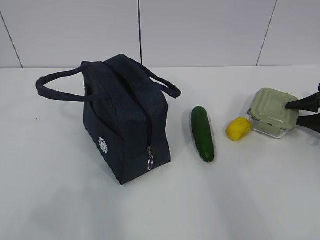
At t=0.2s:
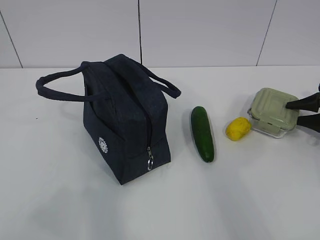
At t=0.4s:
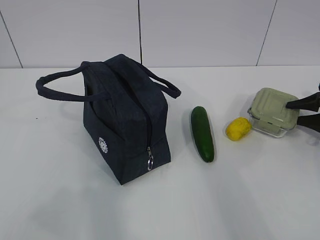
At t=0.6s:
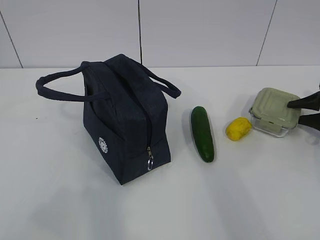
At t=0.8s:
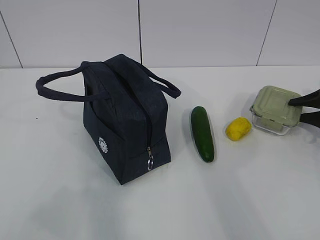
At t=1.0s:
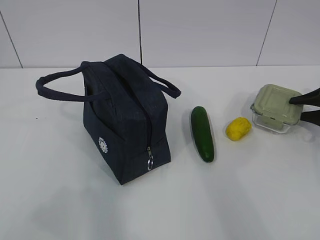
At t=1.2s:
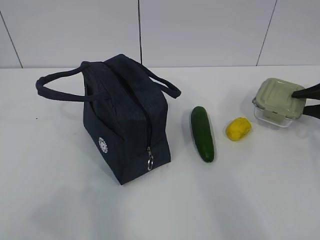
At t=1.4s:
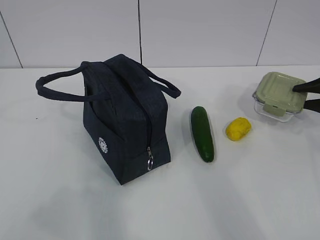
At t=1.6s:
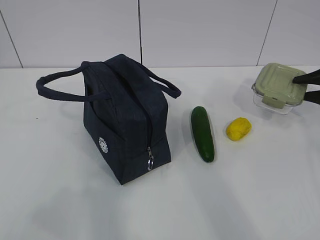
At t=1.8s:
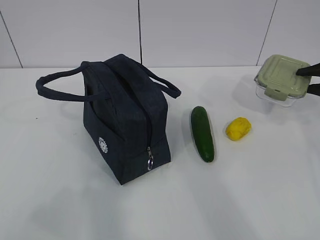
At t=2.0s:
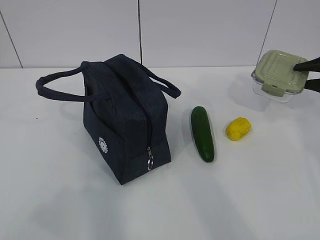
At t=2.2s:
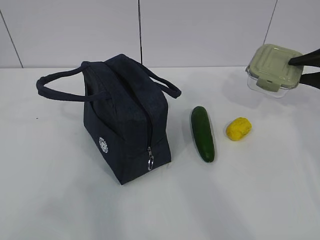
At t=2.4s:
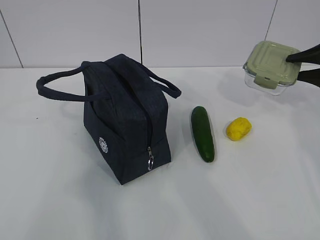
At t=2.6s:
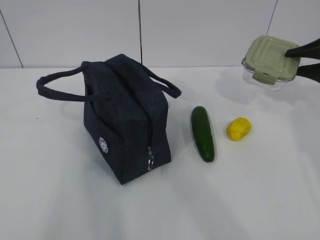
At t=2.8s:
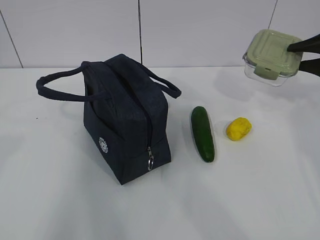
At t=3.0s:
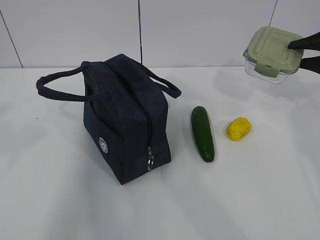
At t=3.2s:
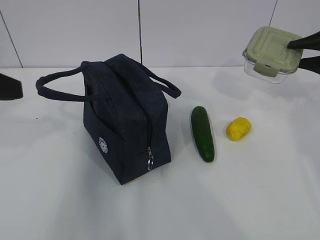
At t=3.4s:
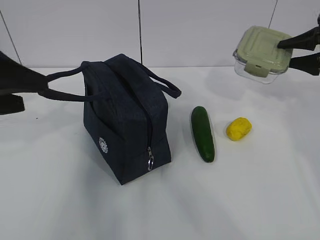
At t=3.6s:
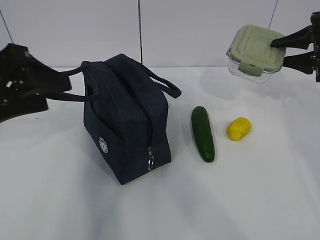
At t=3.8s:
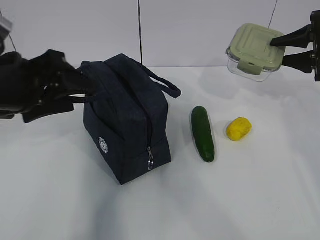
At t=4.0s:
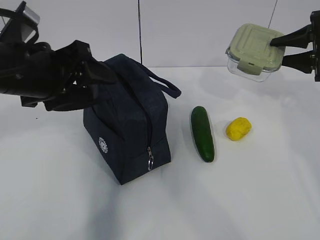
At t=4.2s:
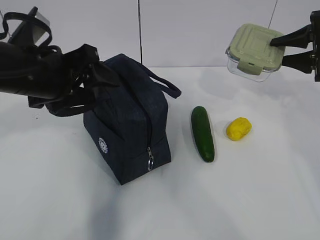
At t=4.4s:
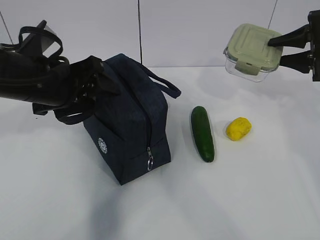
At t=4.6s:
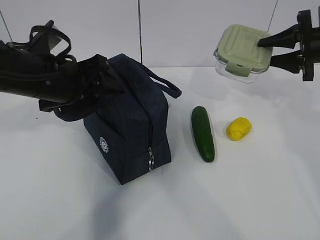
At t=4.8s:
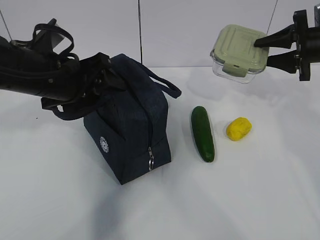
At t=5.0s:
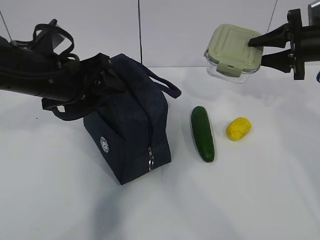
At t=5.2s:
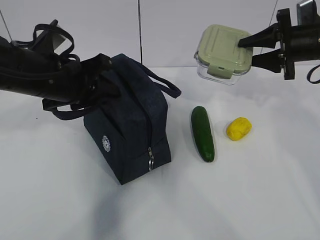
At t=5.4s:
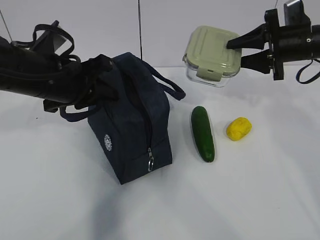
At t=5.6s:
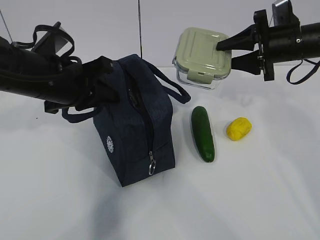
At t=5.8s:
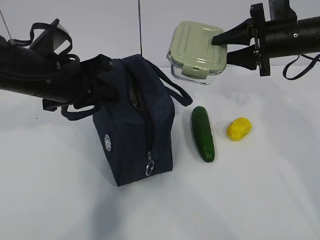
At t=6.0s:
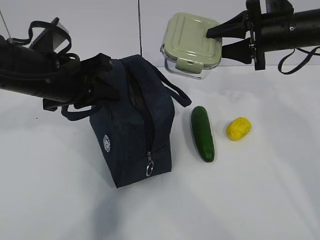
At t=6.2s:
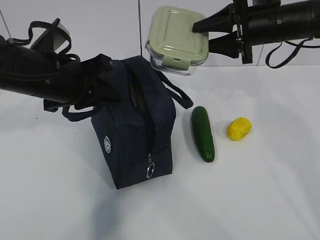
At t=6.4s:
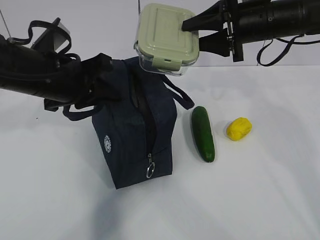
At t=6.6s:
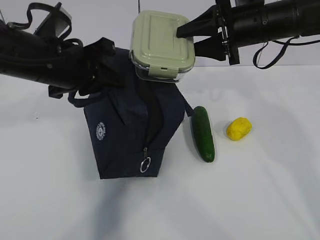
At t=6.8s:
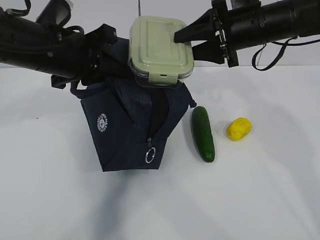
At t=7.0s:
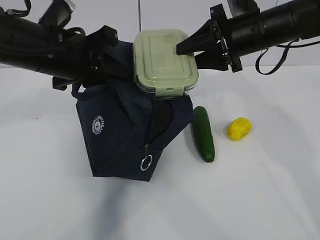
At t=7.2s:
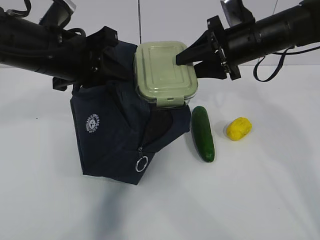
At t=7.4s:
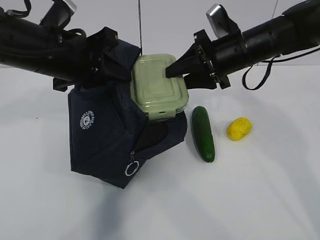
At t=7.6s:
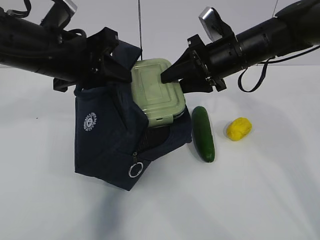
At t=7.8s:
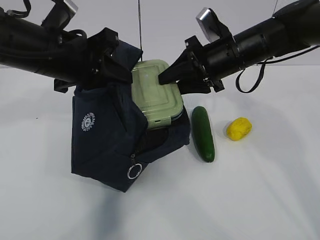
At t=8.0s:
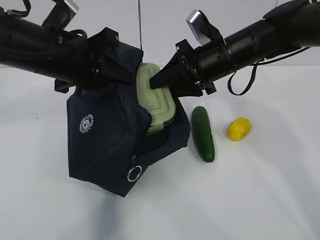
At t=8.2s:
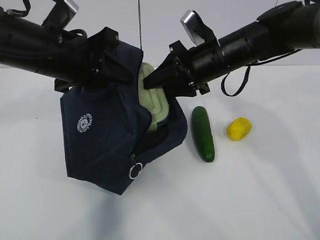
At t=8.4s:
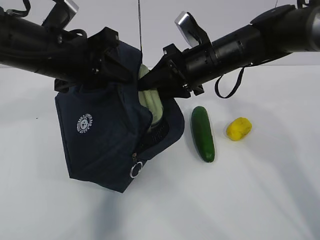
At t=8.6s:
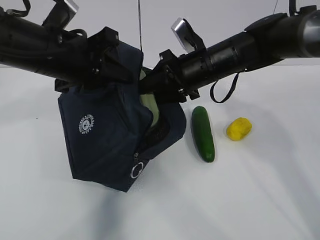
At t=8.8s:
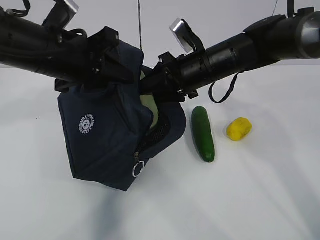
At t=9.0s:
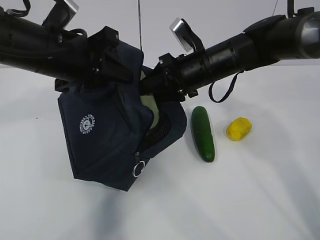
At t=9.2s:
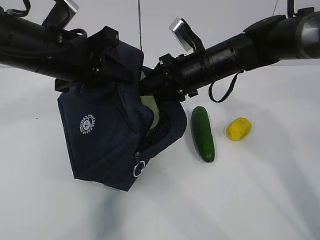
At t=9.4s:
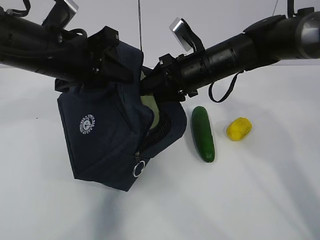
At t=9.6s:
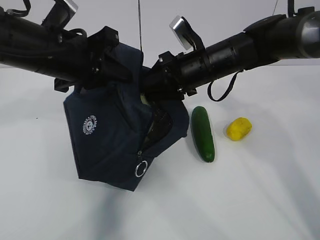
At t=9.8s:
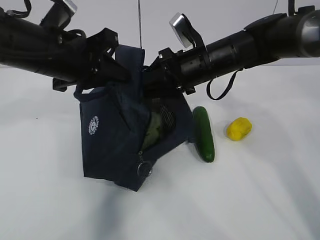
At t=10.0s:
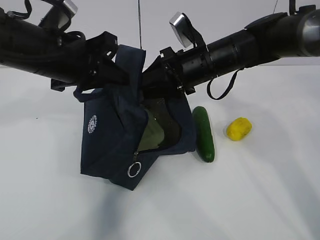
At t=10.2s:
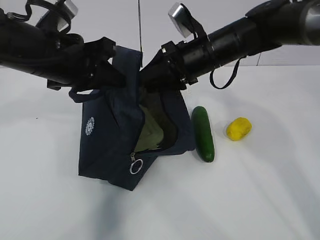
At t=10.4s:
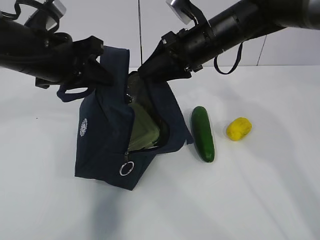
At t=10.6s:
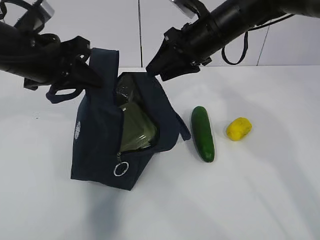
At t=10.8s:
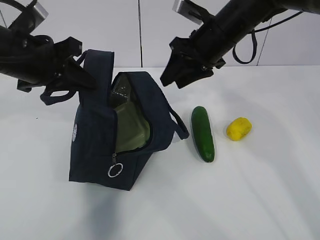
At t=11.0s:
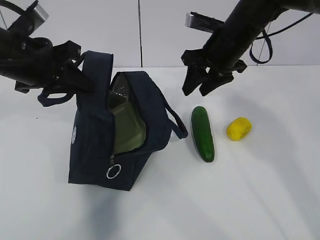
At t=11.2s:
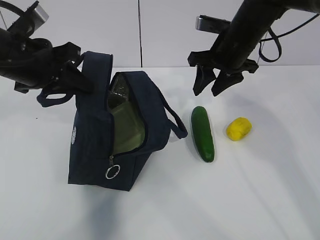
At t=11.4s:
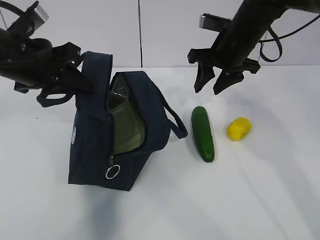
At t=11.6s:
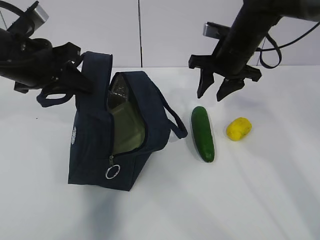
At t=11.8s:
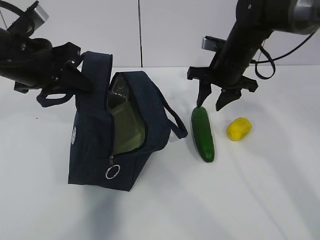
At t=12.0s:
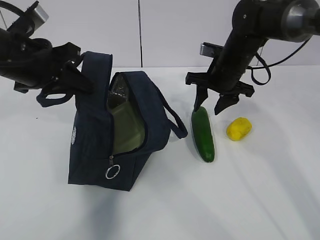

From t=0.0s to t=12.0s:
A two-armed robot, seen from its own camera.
Step, from t=1.6s to t=4.2s: Place it into the bag with your right hand.
Step, from t=4.4s to t=7.6s: Grab the cucumber with your right hand.
From t=0.0s to t=1.6s: The right gripper shifts about 5 cm upward.
From t=1.6s to t=3.0s: The right gripper travels upward by roughly 10 cm. Meanwhile the left gripper moves forward, some 15 cm.
From t=3.0s to t=4.4s: The left gripper heads forward, to the right and downward, covering some 20 cm.
From t=4.4s to t=6.0s: The right gripper goes about 10 cm to the left. The left gripper closes its fingers.
From t=6.0s to t=7.6s: The right gripper moves to the left, approximately 10 cm.
From t=7.6s to t=9.0s: The right gripper moves about 5 cm.
From t=10.4s to t=12.0s: The right gripper travels downward and to the right by about 10 cm.

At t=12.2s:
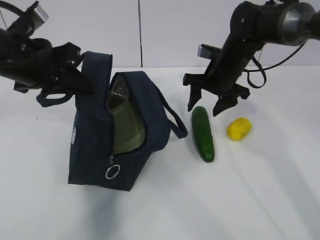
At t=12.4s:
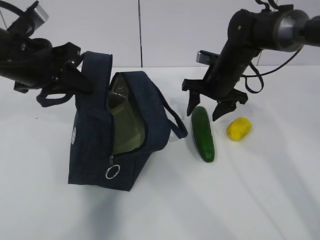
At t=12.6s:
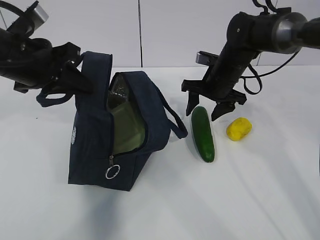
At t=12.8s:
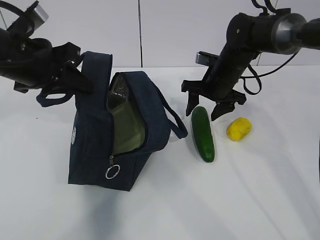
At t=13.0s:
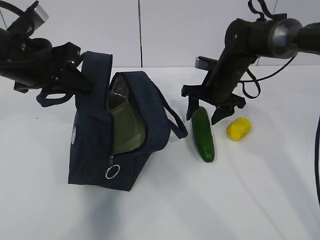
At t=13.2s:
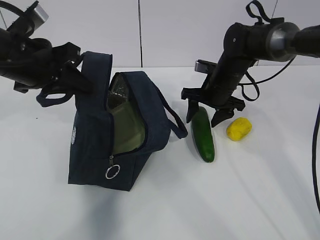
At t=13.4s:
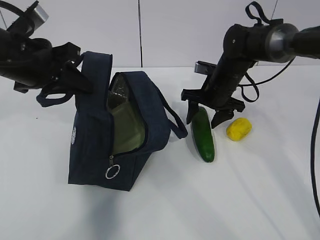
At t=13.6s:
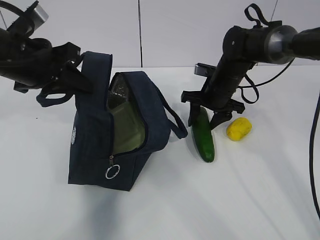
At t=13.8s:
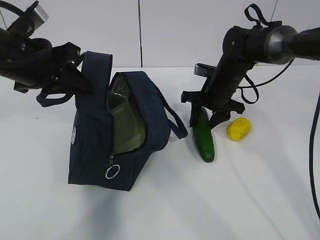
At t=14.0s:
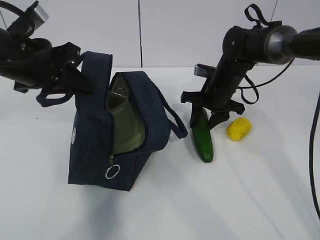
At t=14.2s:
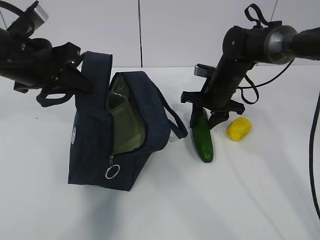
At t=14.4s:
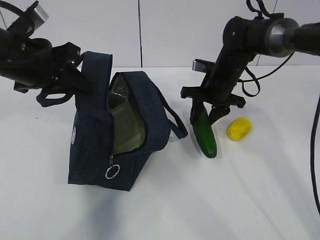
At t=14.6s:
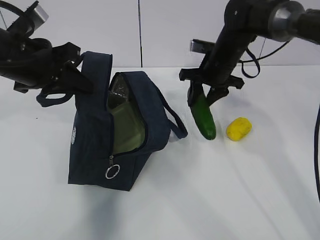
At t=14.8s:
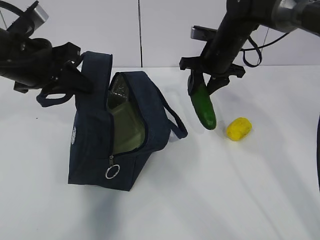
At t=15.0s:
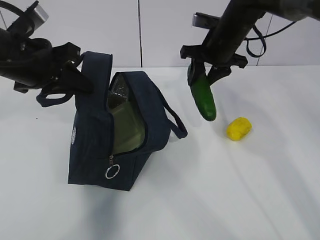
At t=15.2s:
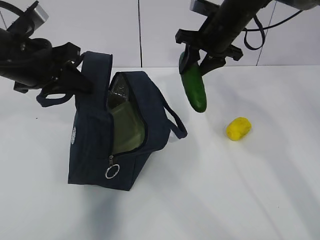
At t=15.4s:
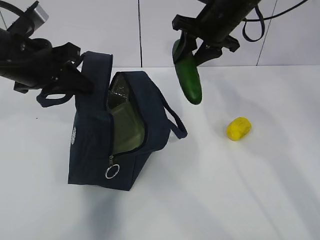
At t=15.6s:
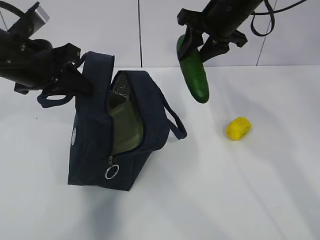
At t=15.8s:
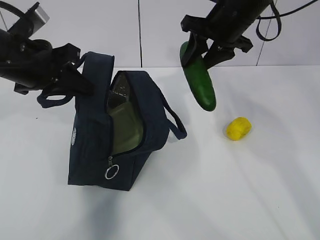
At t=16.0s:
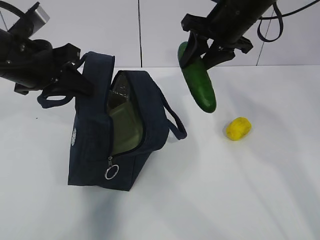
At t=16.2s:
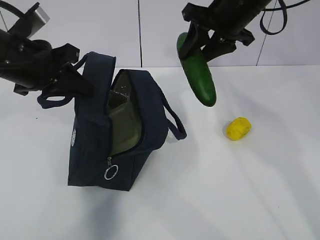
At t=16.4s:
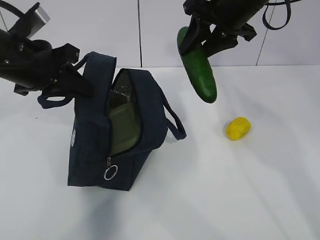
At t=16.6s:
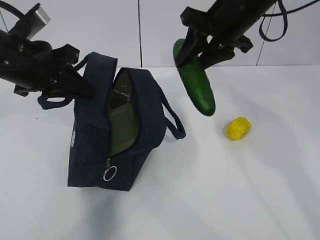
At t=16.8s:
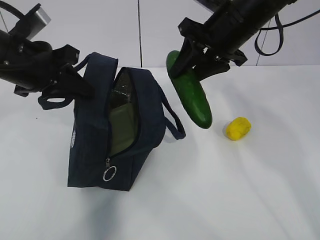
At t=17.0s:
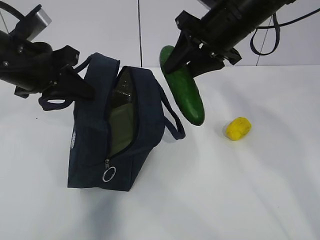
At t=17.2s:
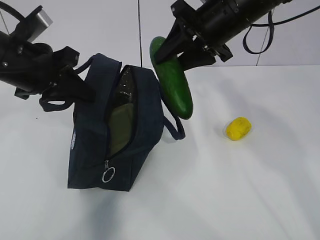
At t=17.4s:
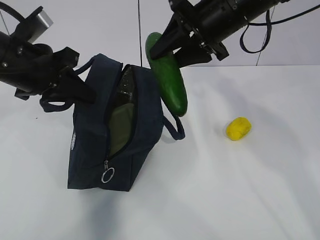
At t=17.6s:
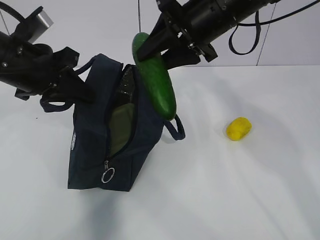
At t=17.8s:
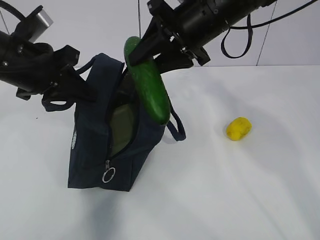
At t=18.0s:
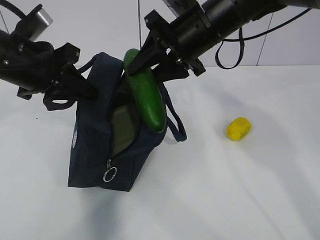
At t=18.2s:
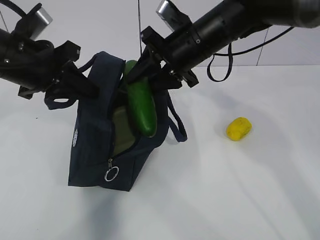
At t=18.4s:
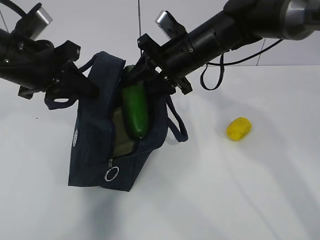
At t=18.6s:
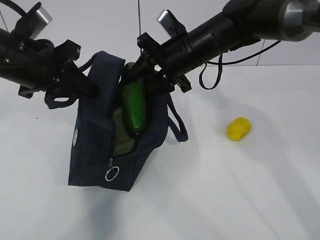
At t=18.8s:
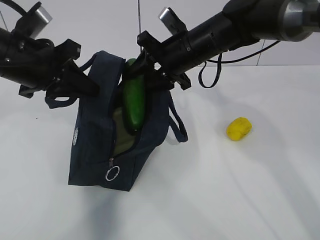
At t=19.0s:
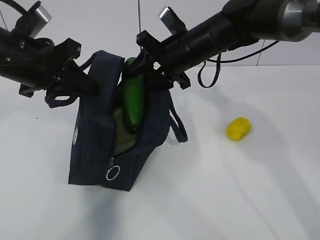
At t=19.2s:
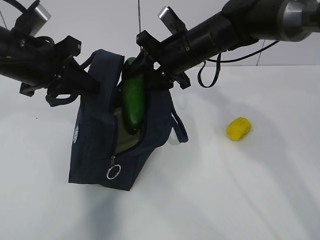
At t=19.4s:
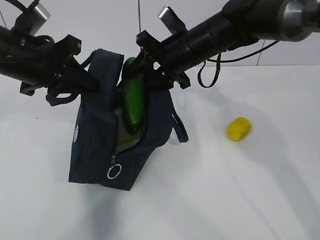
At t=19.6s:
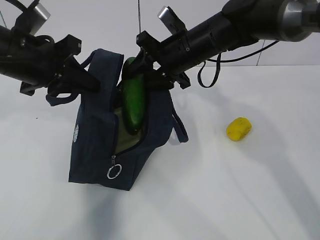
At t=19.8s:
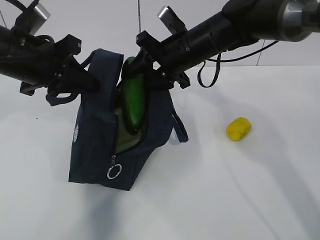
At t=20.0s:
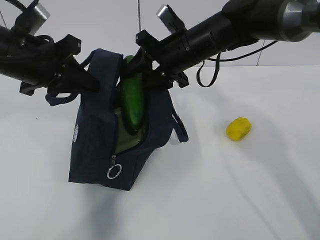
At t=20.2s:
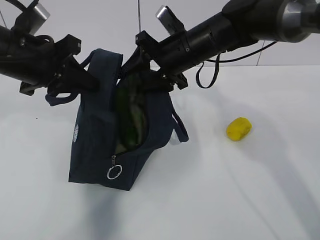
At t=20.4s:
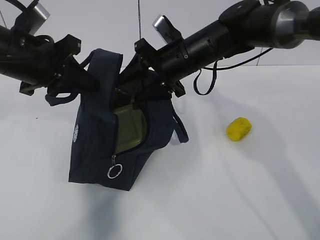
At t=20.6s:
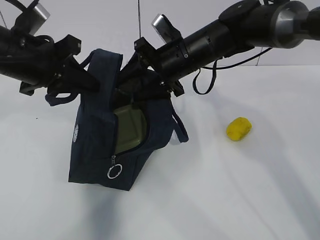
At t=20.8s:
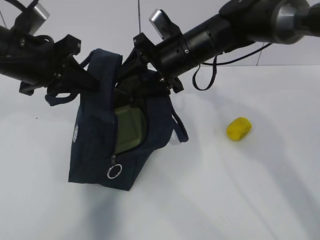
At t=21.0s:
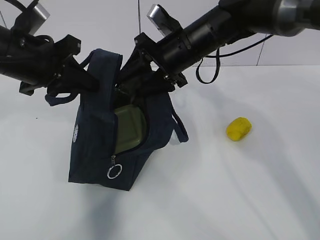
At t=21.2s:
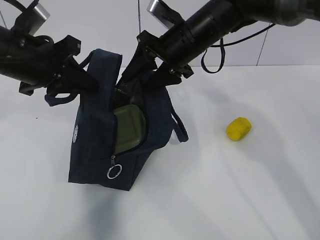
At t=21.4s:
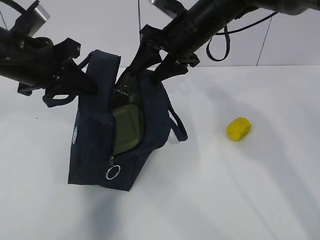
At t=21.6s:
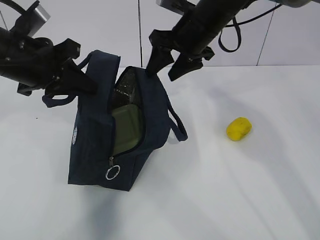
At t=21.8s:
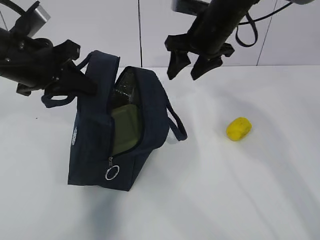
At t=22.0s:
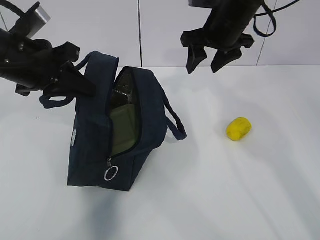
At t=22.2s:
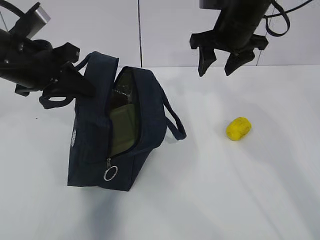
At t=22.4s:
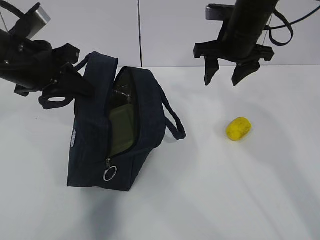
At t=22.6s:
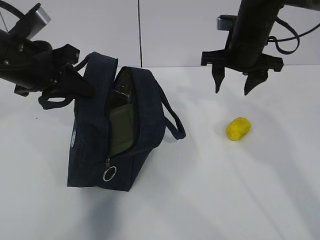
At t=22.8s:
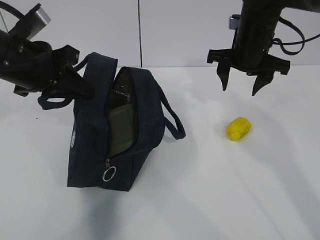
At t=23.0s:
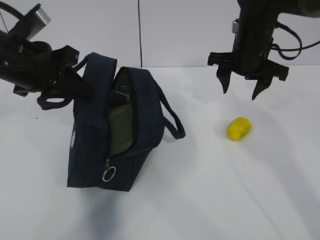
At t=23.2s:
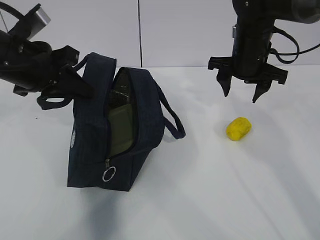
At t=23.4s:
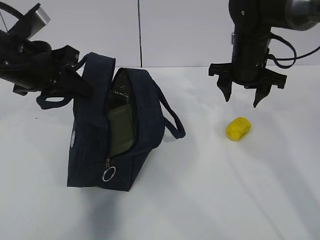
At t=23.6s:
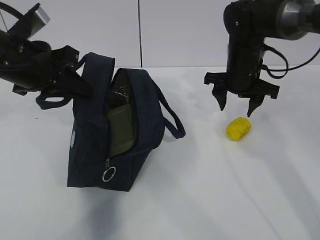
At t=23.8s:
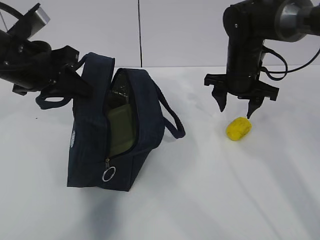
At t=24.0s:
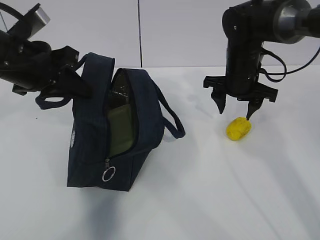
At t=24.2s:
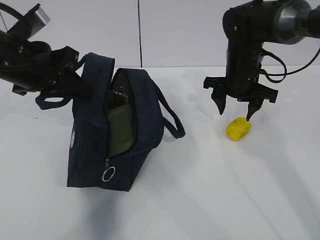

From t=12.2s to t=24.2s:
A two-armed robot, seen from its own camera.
Step, from t=13.0s to t=18.2s: Grab the lemon with your right hand.
From t=12.2s to t=13.8s: There are only small adjustments of the grippers.
From t=13.8s to t=15.2s: The right gripper goes approximately 10 cm upward.
From t=15.2s to t=16.6s: The right gripper travels backward and upward by approximately 10 cm.
From t=16.6s to t=18.2s: The right gripper shifts roughly 10 cm to the left and downward.
From t=18.2s to t=21.2s: The grippers move only a little.
From t=21.2s to t=22.6s: The right gripper moves to the right, roughly 10 cm.
From t=22.6s to t=24.2s: The right gripper travels downward by roughly 5 cm.
